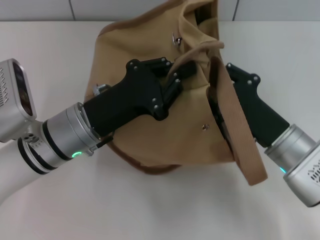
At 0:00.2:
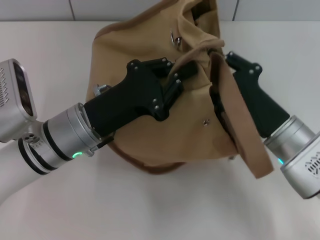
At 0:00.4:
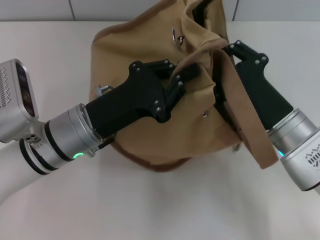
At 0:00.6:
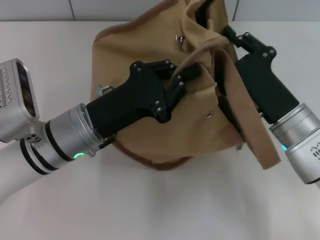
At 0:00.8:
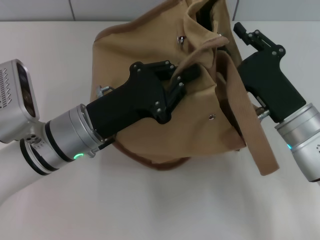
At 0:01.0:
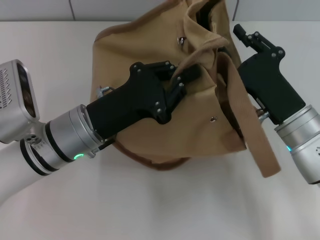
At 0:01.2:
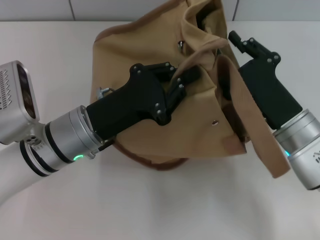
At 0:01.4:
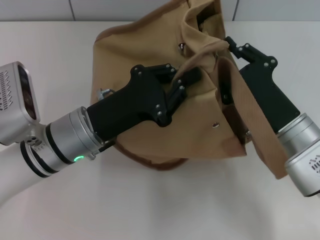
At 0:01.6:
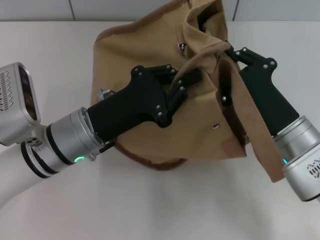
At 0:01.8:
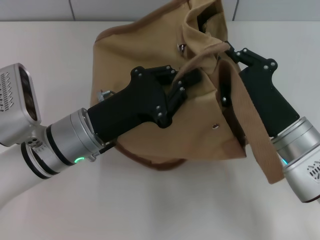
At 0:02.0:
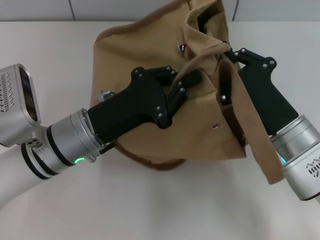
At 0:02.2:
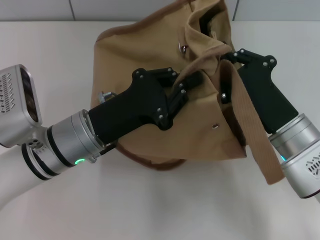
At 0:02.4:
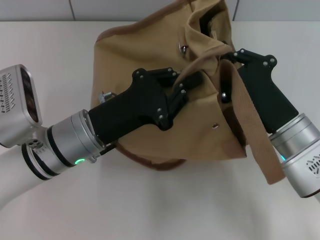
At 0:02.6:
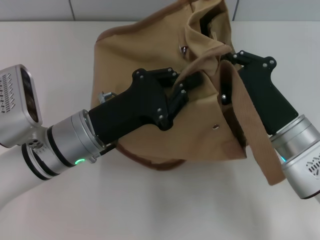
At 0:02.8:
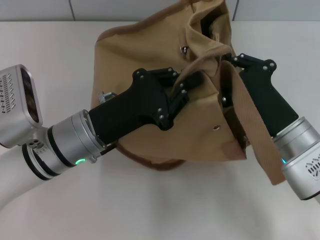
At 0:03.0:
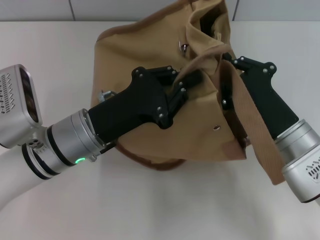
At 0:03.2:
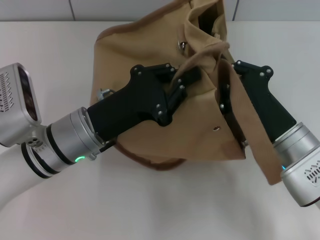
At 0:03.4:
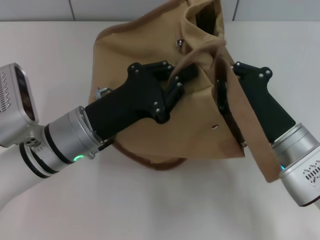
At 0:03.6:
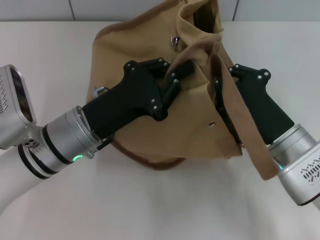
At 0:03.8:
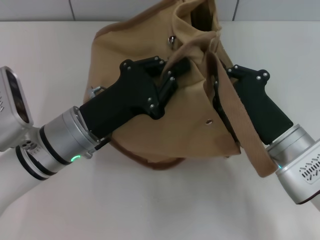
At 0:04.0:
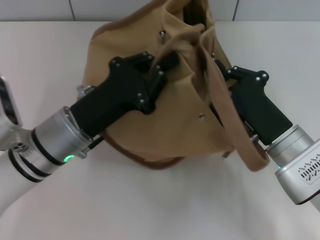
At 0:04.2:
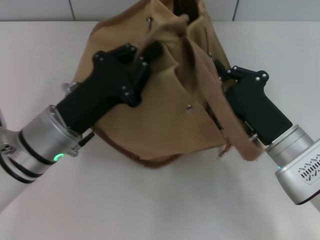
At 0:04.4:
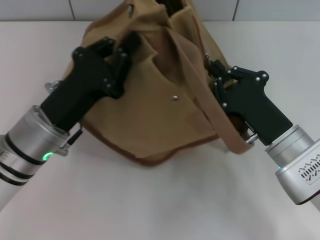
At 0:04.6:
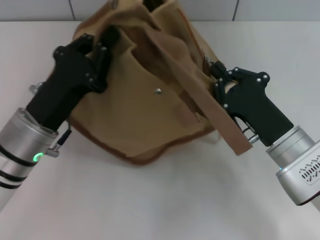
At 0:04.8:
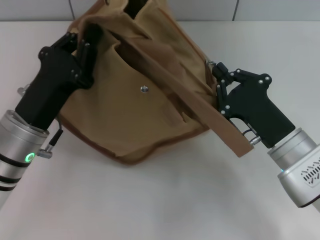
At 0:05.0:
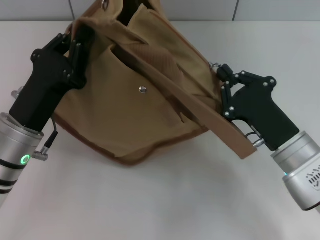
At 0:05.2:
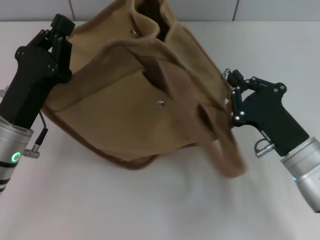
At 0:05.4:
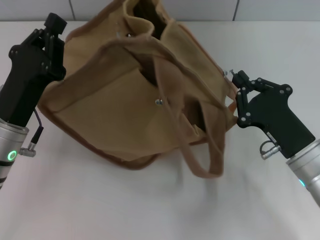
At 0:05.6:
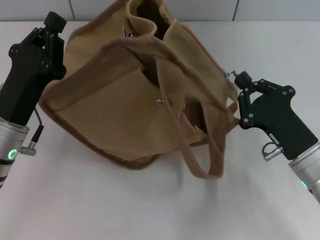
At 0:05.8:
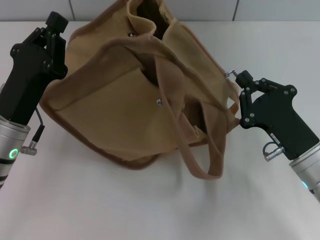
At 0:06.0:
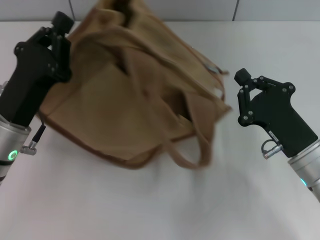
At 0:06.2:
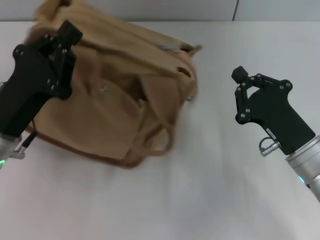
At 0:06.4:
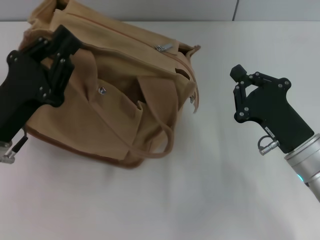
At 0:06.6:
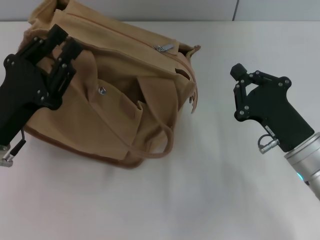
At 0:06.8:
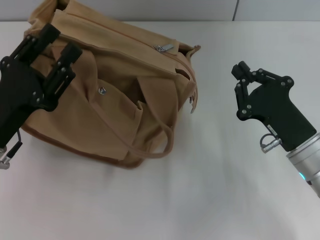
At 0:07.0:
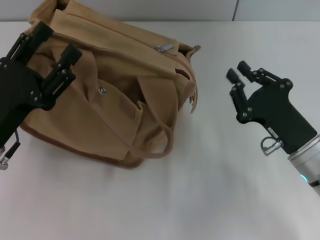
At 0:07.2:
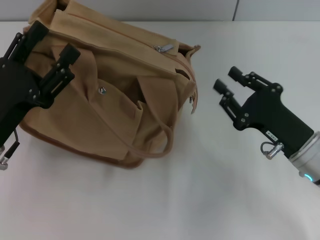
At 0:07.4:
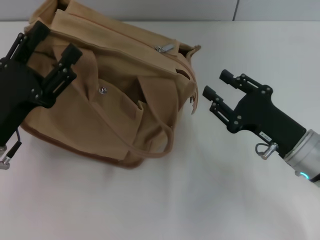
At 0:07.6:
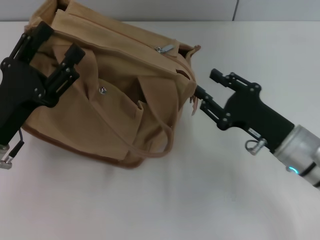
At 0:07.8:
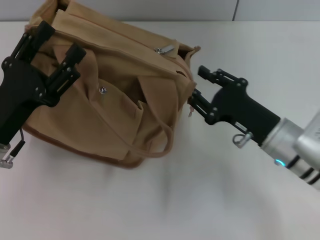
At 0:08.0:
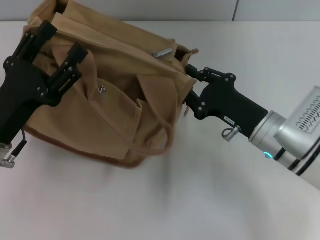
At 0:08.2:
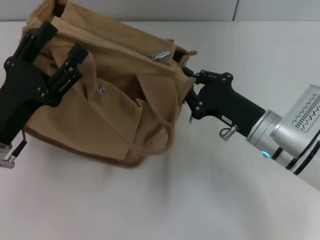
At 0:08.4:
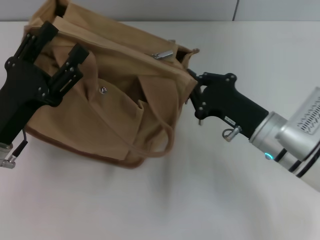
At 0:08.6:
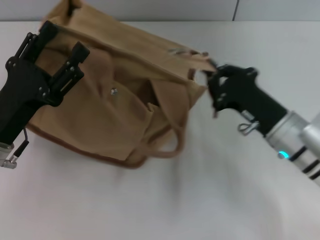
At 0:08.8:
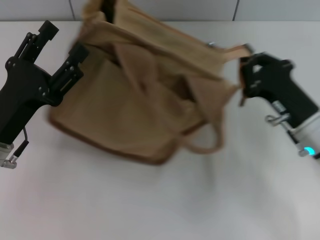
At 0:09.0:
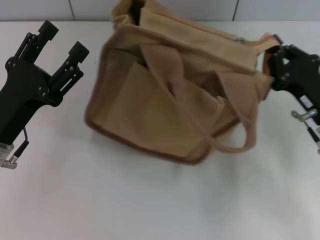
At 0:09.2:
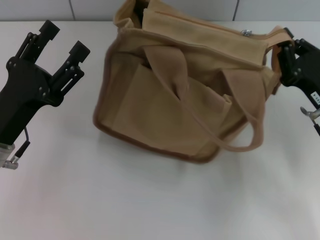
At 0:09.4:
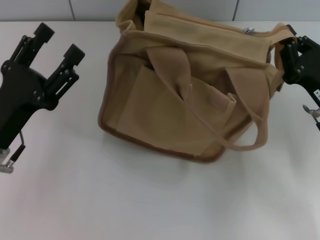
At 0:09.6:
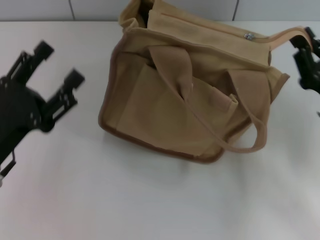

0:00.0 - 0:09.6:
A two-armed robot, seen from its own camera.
Step, 0:00.0 - 0:05.2: Grab the bag with your left hand.
Step, 0:05.4 - 0:06.2: Pull open the zipper with your right hand.
0:01.6 - 0:03.2: The right gripper closes up.
0:03.2 - 0:04.8: The left gripper shifts approximately 5 cm to the left.
0:06.4 - 0:08.0: The right gripper moves roughly 5 cm, and opens; the left gripper opens up.
0:08.0 - 0:09.6: The right gripper goes roughly 10 cm to the right, and closes.

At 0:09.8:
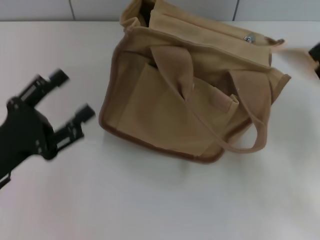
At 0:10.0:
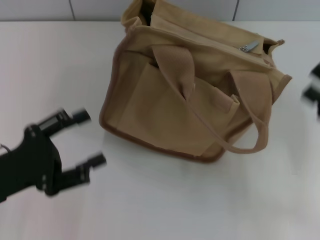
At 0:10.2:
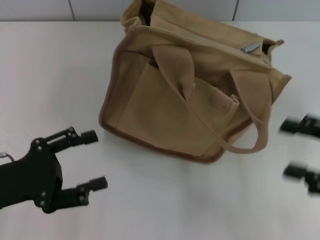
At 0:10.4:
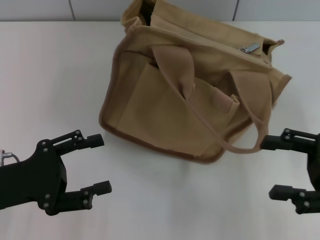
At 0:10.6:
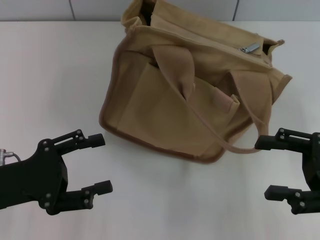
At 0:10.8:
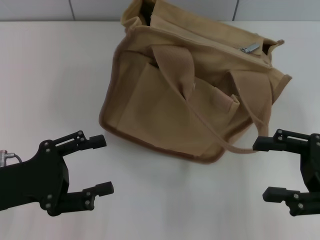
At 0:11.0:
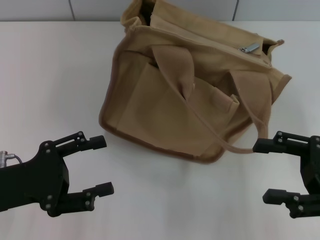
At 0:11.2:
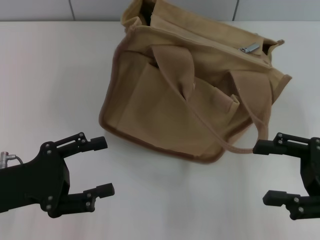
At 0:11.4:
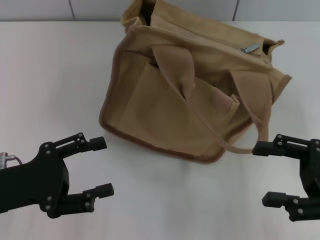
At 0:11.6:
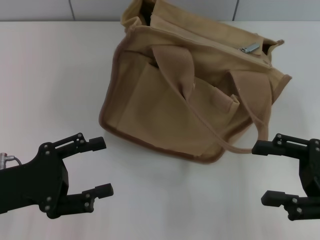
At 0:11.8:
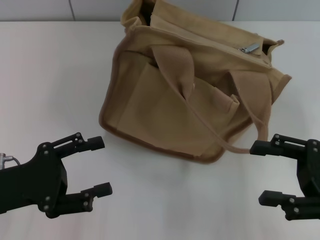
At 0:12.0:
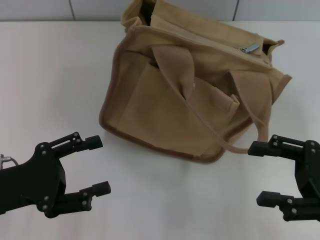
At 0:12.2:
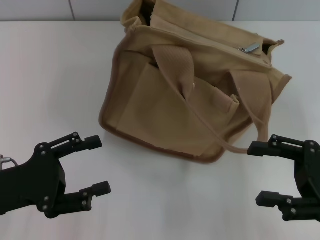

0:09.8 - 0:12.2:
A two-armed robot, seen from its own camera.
0:09.8 - 0:11.0: The right gripper opens up.
0:11.0 - 0:12.2: The two grippers keep their place.

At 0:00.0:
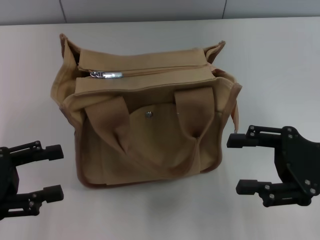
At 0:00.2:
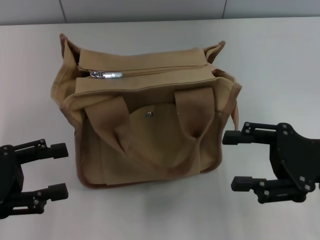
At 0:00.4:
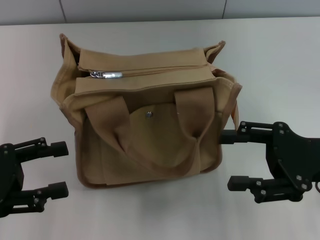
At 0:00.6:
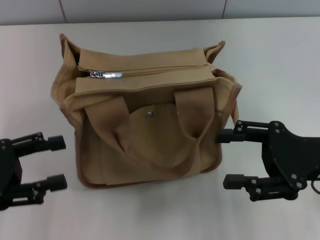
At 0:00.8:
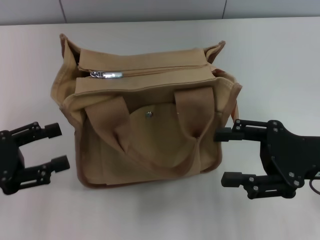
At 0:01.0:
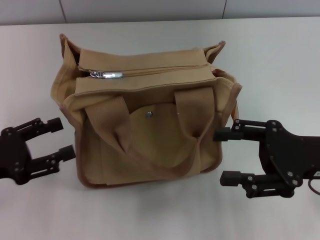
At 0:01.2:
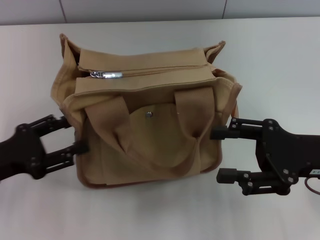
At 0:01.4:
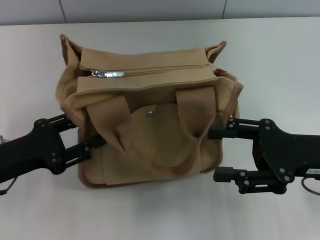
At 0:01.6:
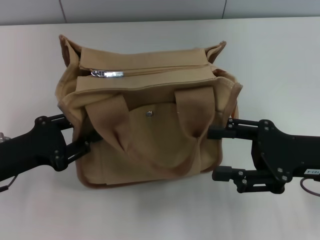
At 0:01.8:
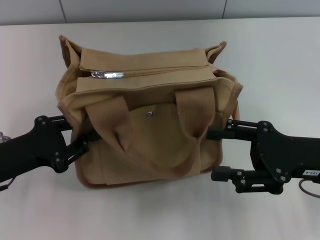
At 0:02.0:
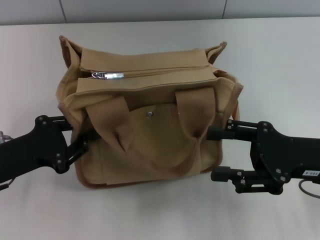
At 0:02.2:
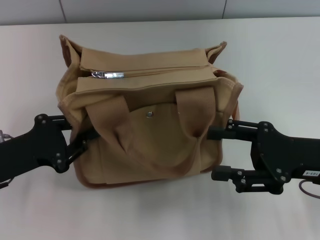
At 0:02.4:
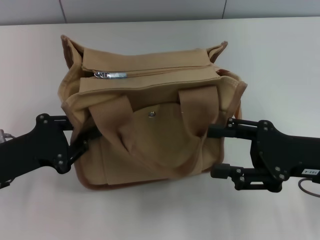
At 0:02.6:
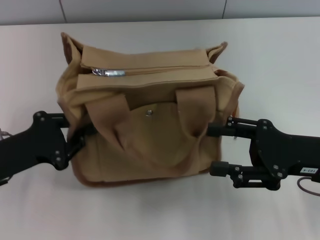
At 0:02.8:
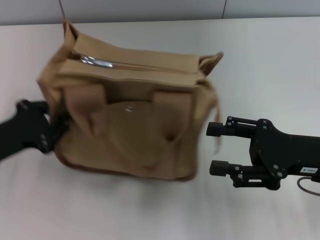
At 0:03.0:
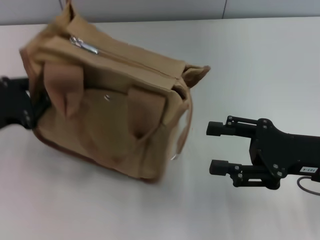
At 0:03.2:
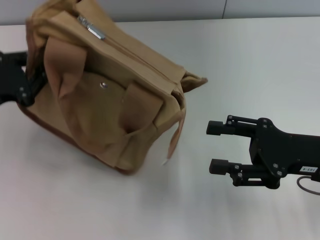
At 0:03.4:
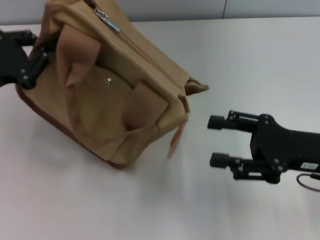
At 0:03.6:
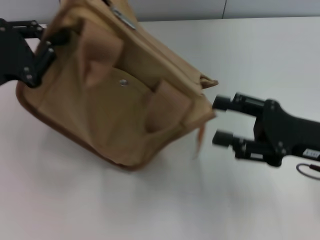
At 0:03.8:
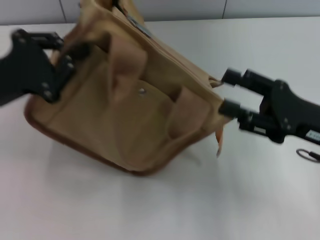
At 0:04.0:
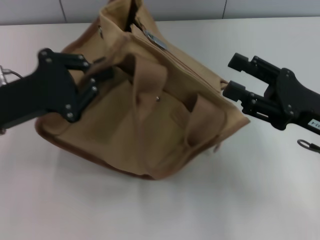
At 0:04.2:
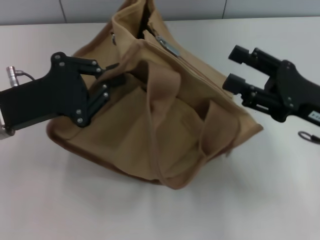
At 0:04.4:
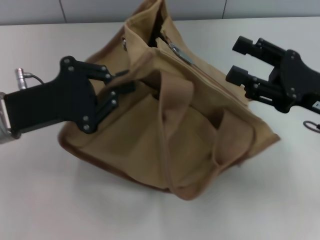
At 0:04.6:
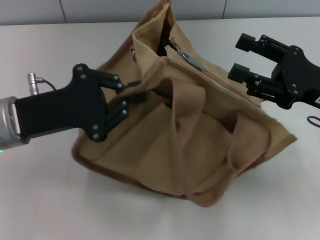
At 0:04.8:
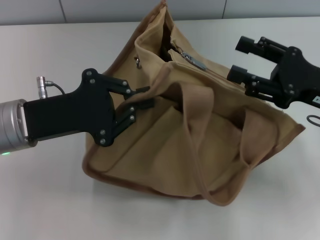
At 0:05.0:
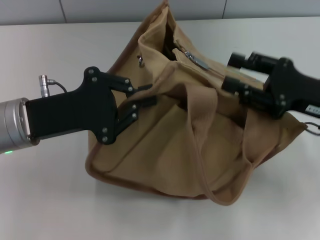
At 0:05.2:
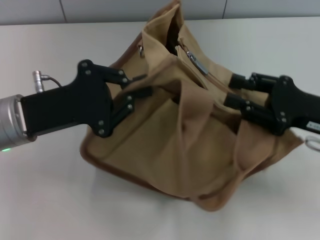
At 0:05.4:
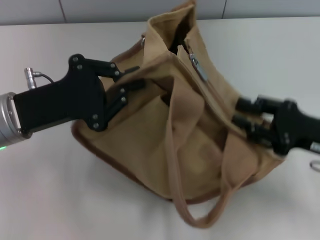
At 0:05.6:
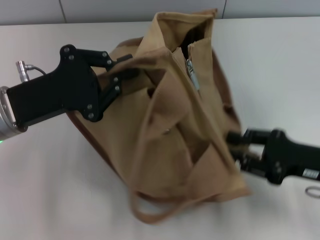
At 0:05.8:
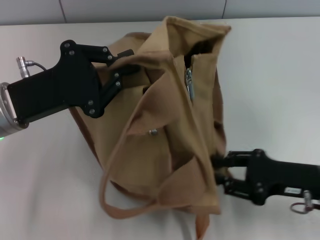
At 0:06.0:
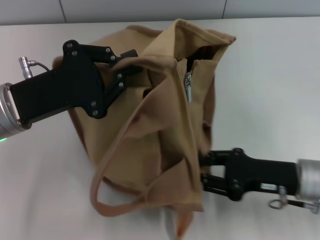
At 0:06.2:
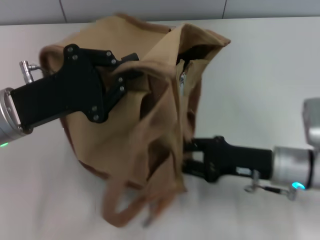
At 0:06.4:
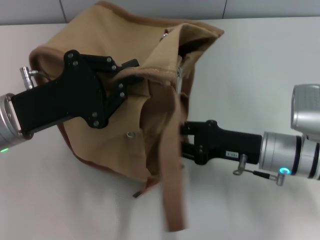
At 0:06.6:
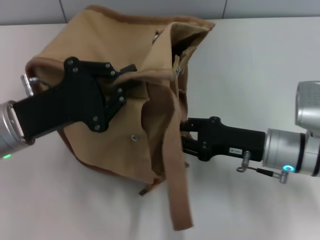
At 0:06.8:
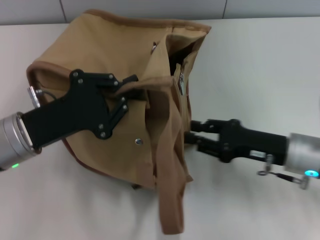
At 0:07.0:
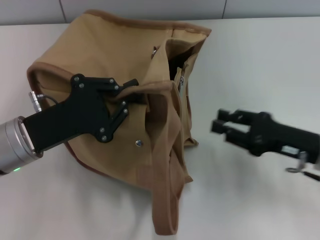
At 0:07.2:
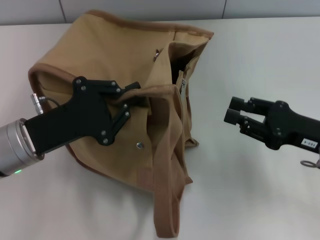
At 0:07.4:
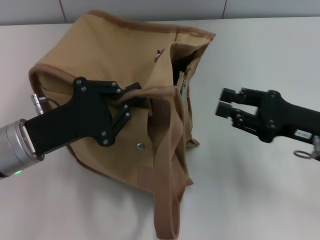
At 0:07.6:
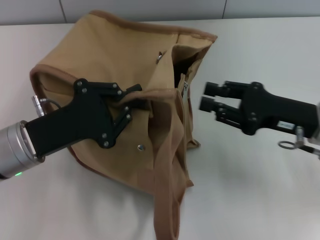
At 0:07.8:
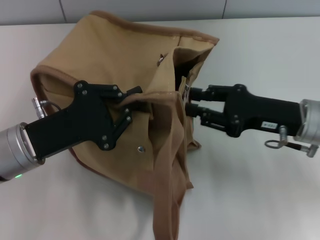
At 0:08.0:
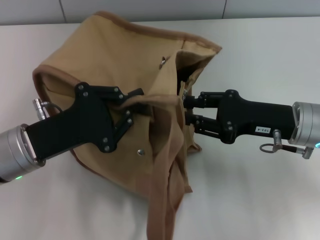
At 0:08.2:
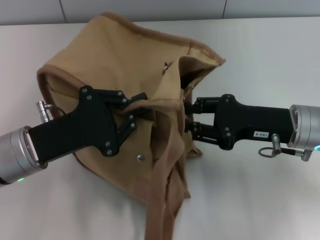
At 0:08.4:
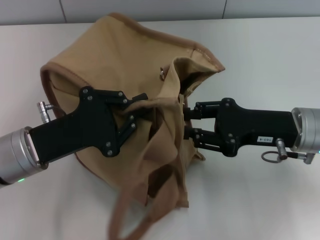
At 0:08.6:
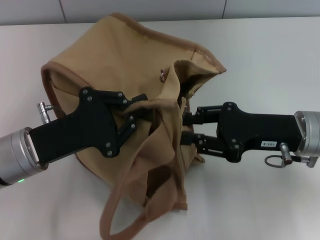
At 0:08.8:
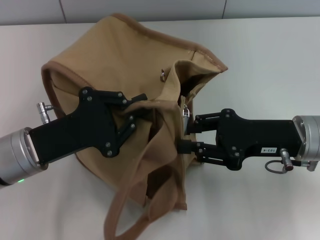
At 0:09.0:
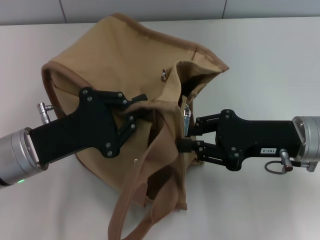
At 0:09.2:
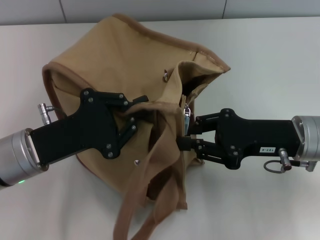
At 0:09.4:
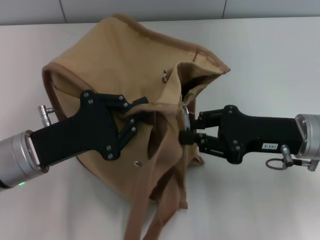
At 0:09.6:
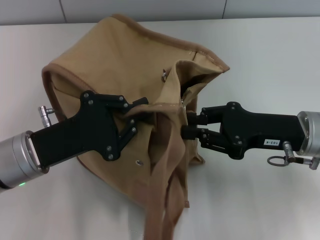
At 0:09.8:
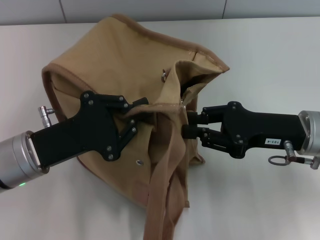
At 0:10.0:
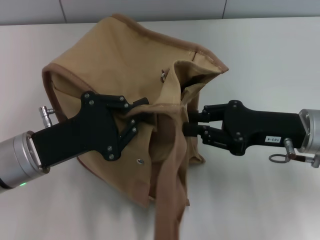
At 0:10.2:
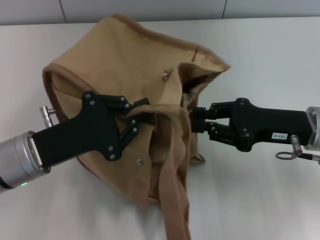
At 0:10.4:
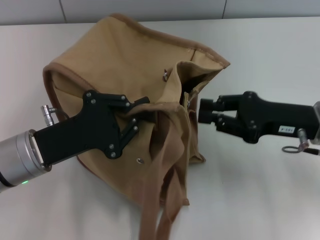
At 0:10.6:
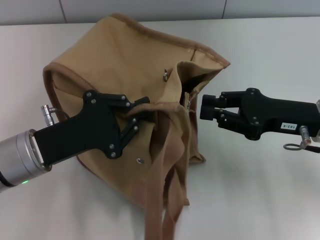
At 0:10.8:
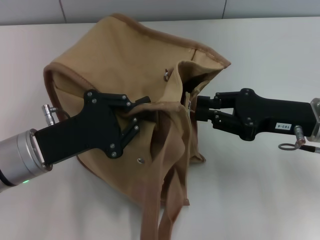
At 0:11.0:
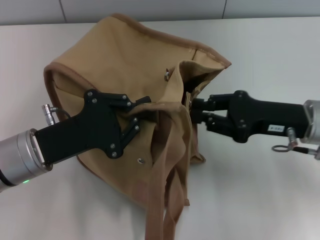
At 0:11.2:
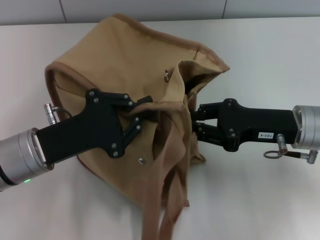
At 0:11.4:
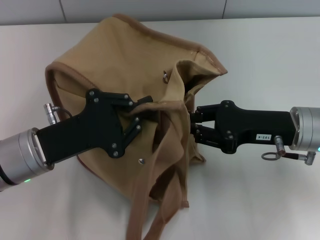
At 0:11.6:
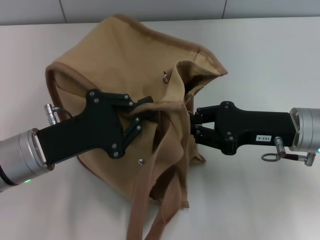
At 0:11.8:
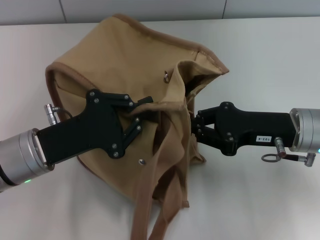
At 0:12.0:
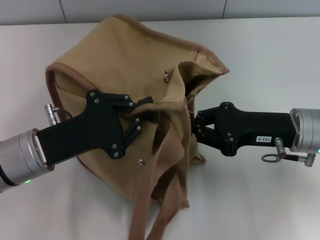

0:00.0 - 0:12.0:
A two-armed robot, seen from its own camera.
0:00.0 - 0:01.6: The left gripper shifts by about 5 cm.
0:01.6 - 0:03.0: The left gripper moves some 5 cm, and closes its fingers.
0:03.0 - 0:04.4: The left gripper is displaced to the right by roughly 10 cm.
0:04.4 - 0:06.0: The right gripper moves downward, about 10 cm, and closes.
0:06.0 - 0:07.6: The right gripper goes roughly 5 cm upward, and goes to the right and returns, about 5 cm each way.
0:09.0 - 0:12.0: There are only small adjustments of the grippers.
